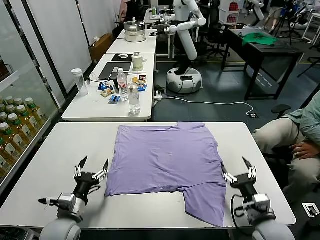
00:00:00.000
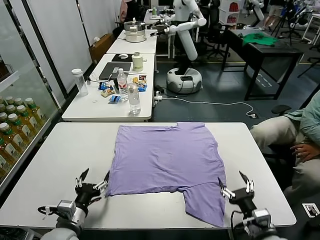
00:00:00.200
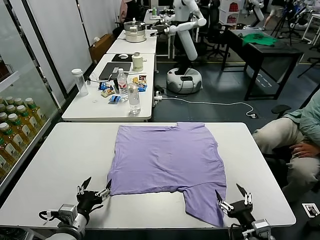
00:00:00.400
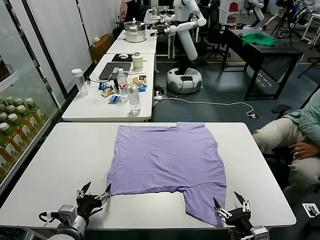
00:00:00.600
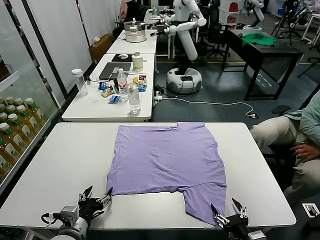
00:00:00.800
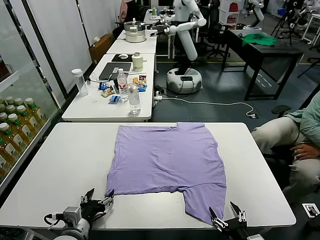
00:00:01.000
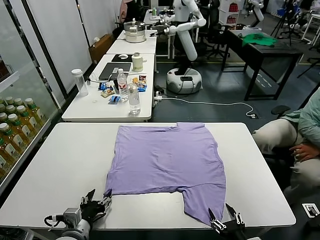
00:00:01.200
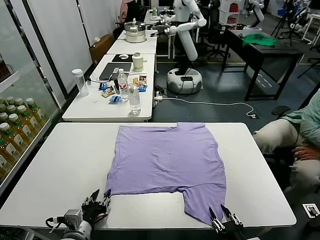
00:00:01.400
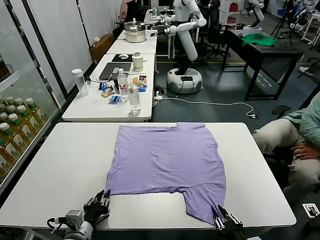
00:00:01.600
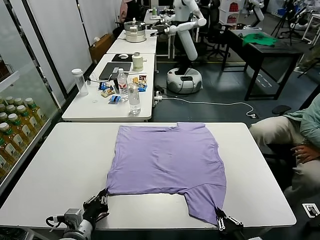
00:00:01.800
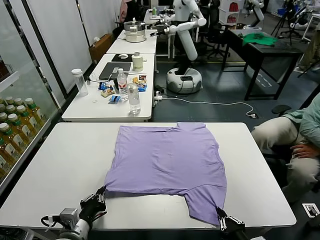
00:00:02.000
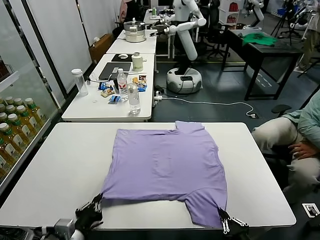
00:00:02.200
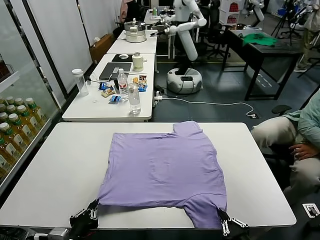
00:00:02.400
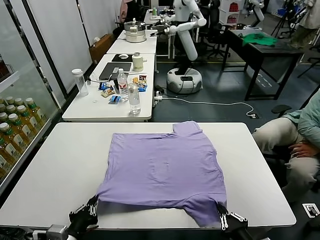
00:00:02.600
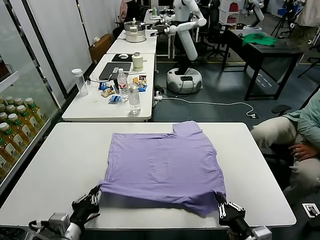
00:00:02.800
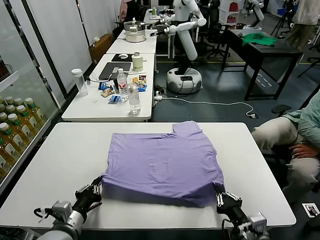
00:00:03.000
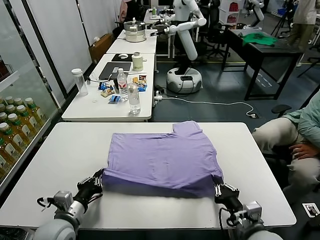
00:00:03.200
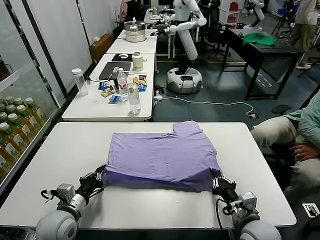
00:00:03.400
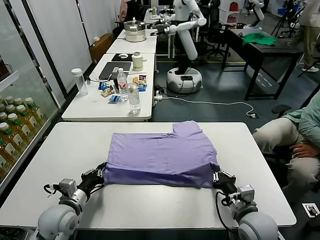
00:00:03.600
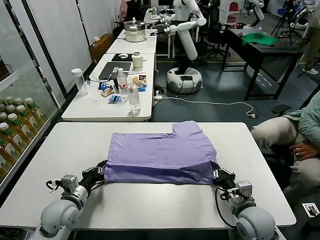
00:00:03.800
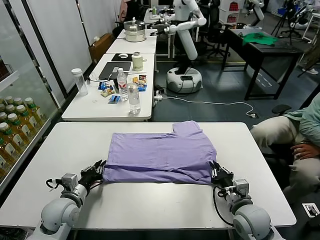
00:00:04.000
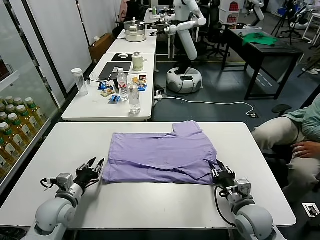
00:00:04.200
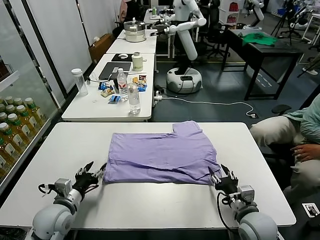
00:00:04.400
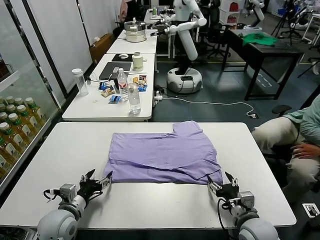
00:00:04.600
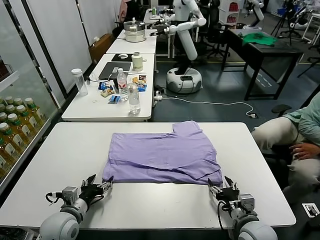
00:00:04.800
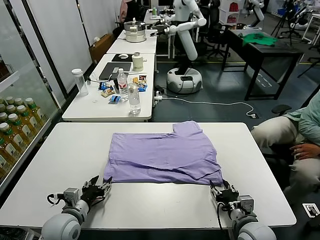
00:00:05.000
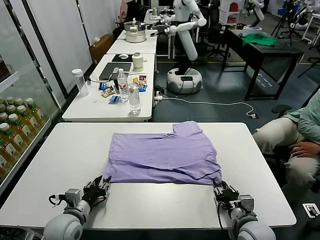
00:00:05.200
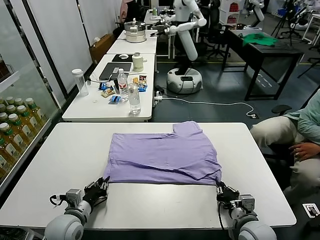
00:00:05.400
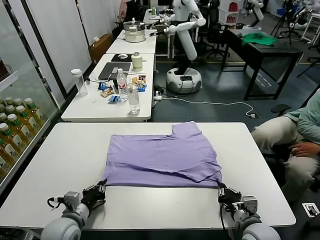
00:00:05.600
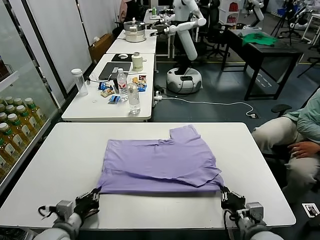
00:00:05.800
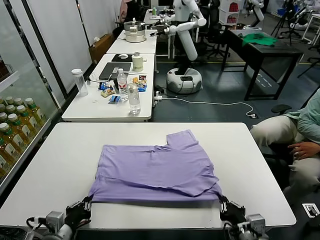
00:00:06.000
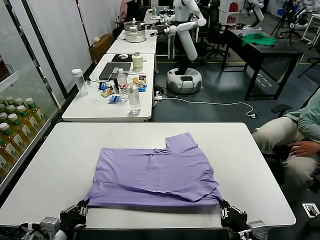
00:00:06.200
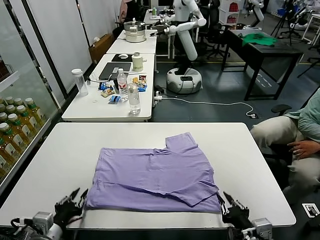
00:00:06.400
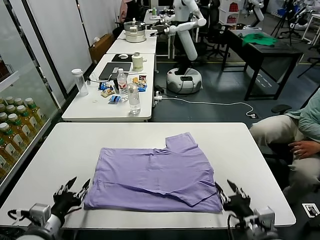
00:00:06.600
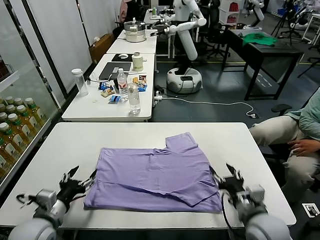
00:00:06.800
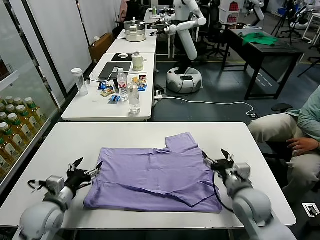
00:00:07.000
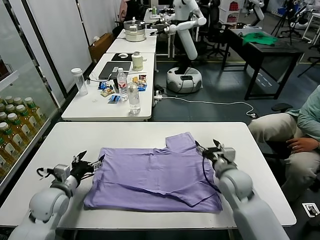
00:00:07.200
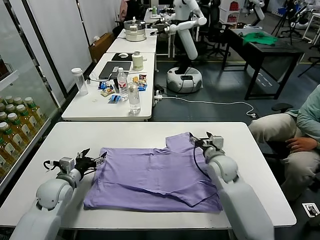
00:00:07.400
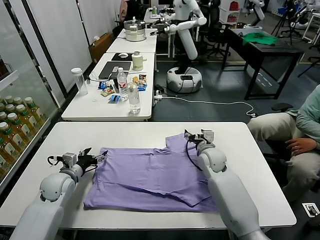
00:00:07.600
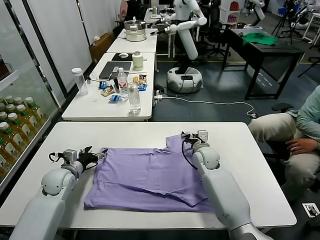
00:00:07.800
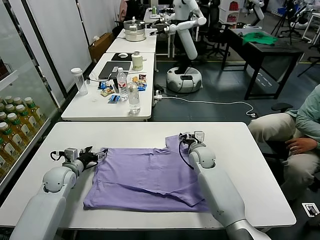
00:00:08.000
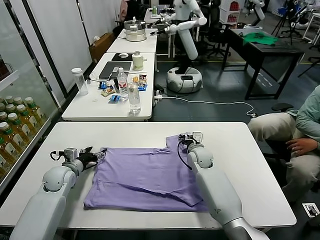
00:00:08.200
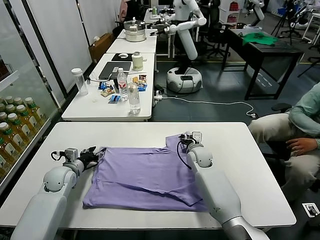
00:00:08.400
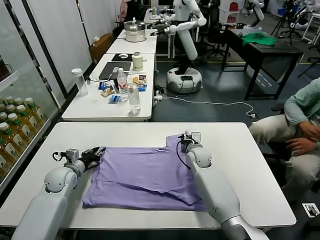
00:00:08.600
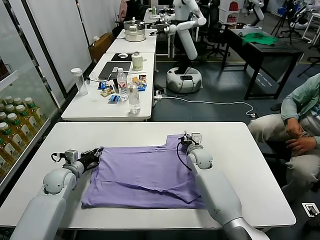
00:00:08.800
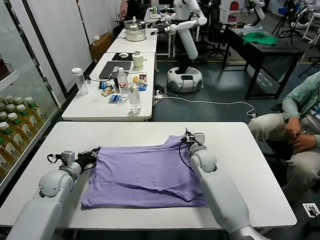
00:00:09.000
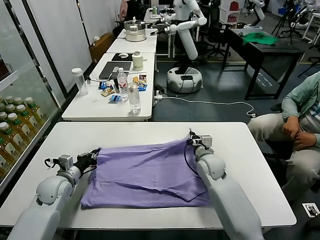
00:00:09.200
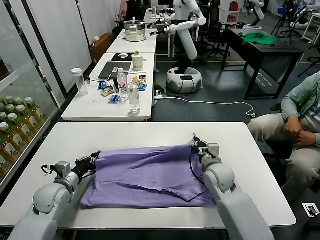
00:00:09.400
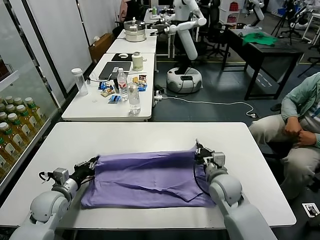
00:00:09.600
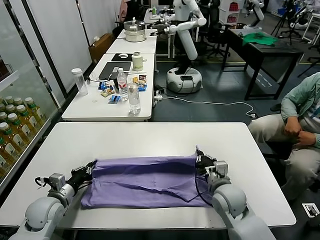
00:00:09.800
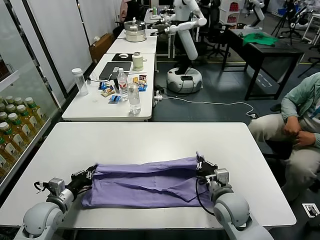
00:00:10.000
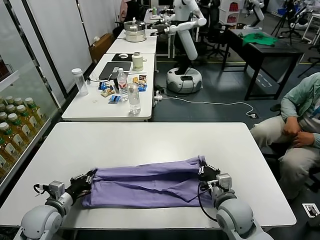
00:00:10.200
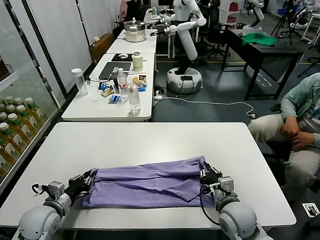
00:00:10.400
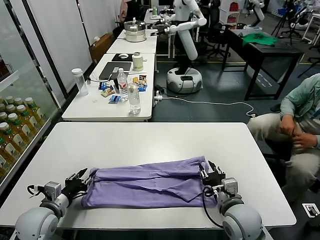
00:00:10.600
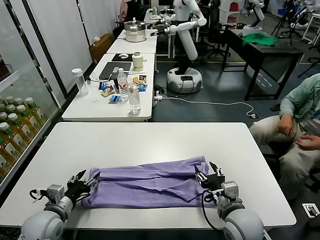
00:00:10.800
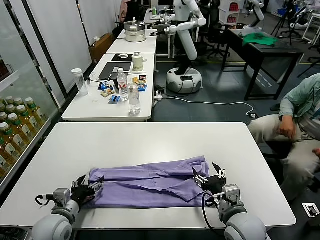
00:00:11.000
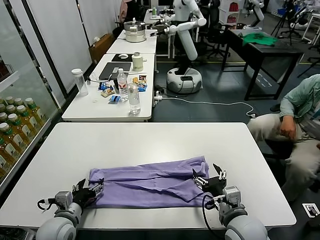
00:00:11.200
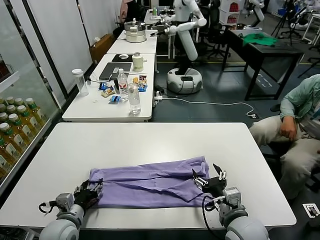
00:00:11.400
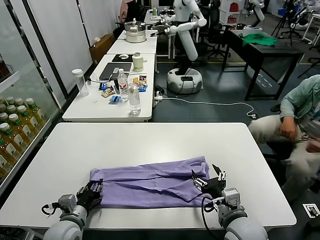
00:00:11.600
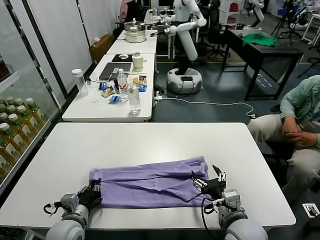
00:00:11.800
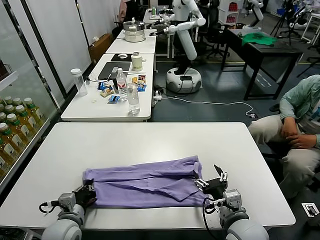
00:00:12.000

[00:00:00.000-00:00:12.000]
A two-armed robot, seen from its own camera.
Task of the whole recording: fold and organize the clothes.
Step, 00:00:00.000 to 00:00:01.800: use both grippers simultaneously to clamp the lower edge of the clothing fabric.
Step, 00:00:02.000 to 00:00:04.200: use both grippers to drag the lower edge of the fabric forward and fold it over the upper edge.
Step, 00:00:04.400 to 00:00:06.200: Drag the clothes downward with both gripper.
Step, 00:00:06.600 to 00:00:07.600: use both grippers simultaneously to clamp the upper edge of the clothing fabric.
Step, 00:00:07.800 to 00:00:12.000: use the left gripper to clamp the left edge of the fabric.
00:00:01.600 to 00:00:03.000: The left gripper moves about 5 cm backward and comes back; the right gripper heads forward and upward, covering some 10 cm.
00:00:03.000 to 00:00:04.400: The right gripper opens its fingers, while the left gripper travels forward by roughly 5 cm, and opens its fingers.
00:00:04.400 to 00:00:06.000: The grippers both shift backward by about 10 cm. The left gripper closes its fingers. The right gripper closes.
00:00:06.000 to 00:00:07.600: The right gripper is displaced forward by some 35 cm, and opens up; the left gripper goes some 20 cm forward, and opens its fingers.
00:00:07.600 to 00:00:09.000: The right gripper closes; the left gripper closes its fingers.
00:00:09.000 to 00:00:10.400: The left gripper moves backward, some 15 cm. Meanwhile the right gripper heads backward, covering about 20 cm, and opens its fingers.
00:00:10.400 to 00:00:12.000: The left gripper goes roughly 10 cm to the right, and opens and closes again. The right gripper goes about 5 cm backward, and opens up.

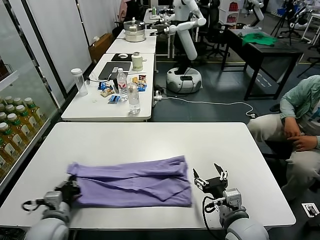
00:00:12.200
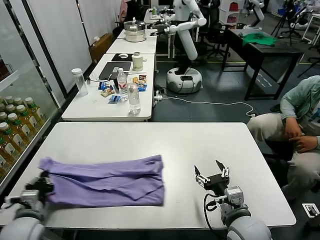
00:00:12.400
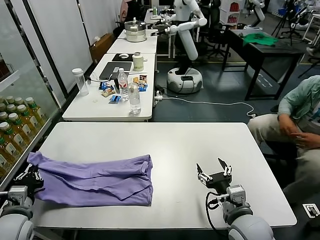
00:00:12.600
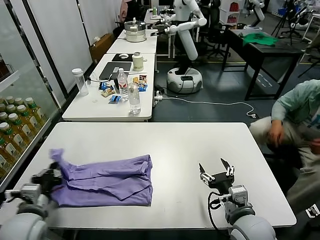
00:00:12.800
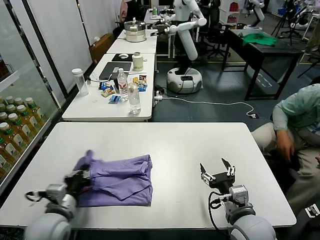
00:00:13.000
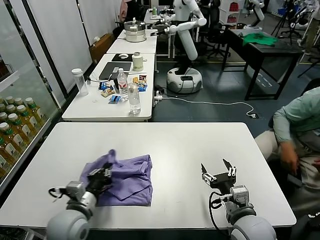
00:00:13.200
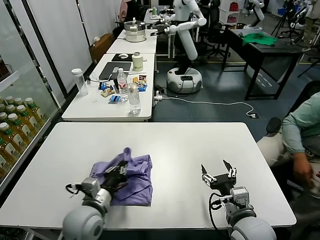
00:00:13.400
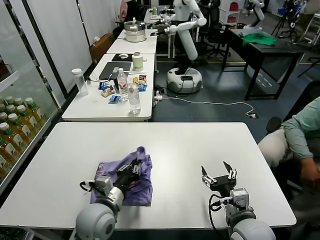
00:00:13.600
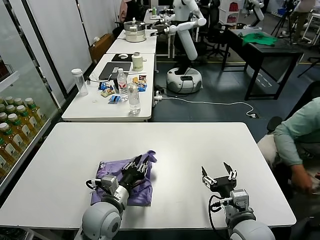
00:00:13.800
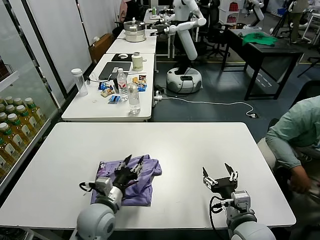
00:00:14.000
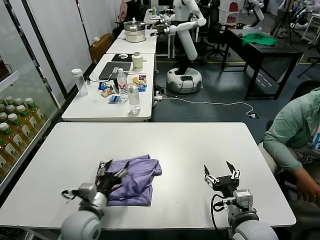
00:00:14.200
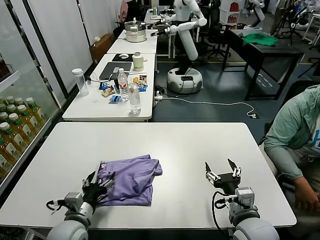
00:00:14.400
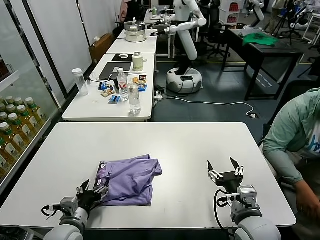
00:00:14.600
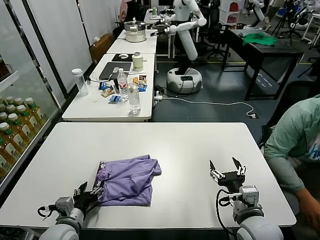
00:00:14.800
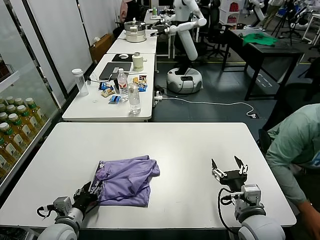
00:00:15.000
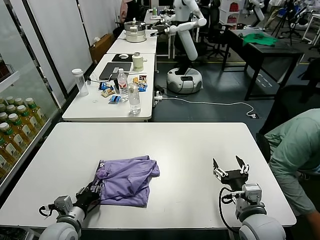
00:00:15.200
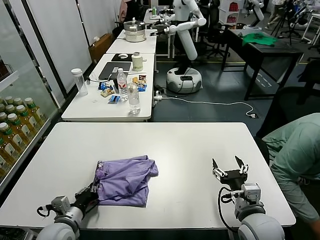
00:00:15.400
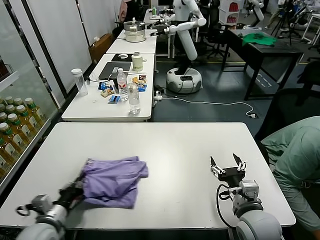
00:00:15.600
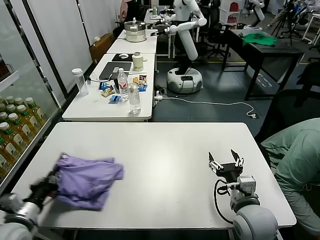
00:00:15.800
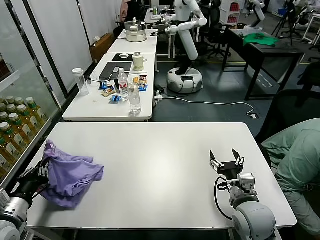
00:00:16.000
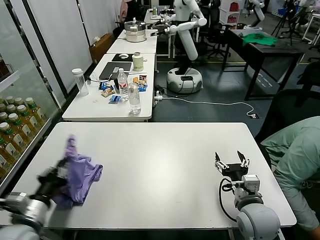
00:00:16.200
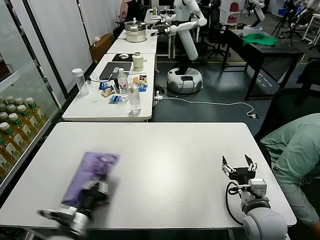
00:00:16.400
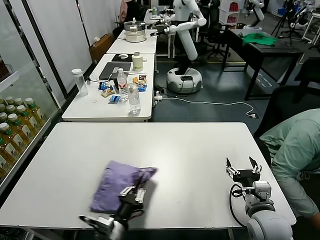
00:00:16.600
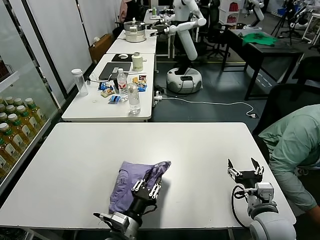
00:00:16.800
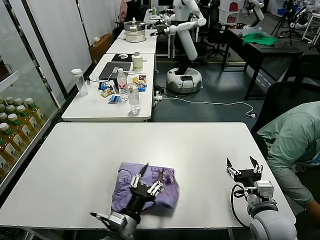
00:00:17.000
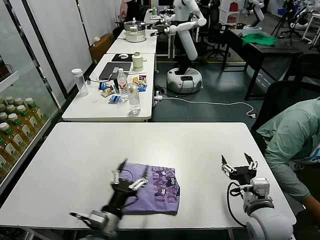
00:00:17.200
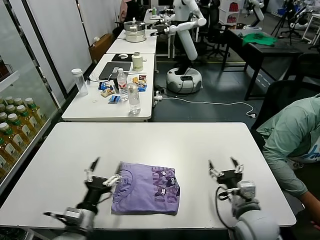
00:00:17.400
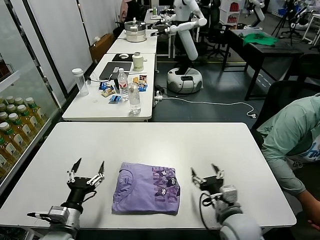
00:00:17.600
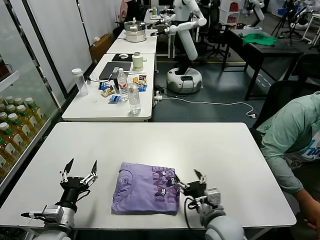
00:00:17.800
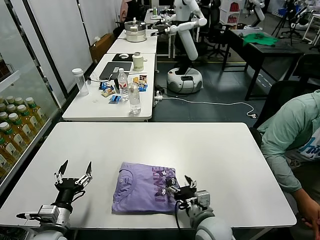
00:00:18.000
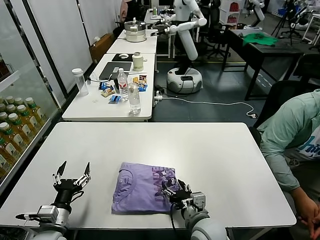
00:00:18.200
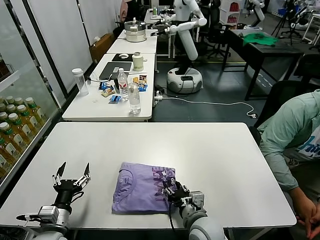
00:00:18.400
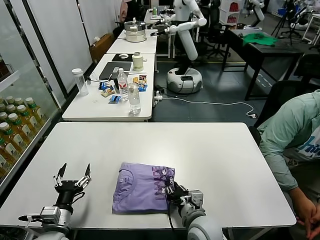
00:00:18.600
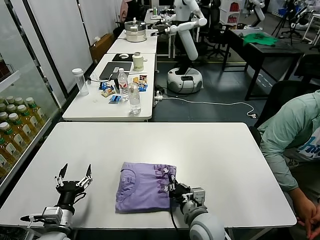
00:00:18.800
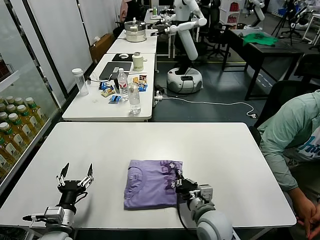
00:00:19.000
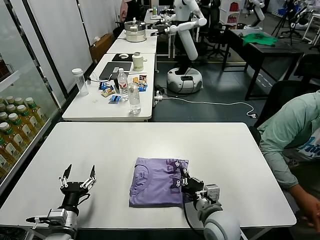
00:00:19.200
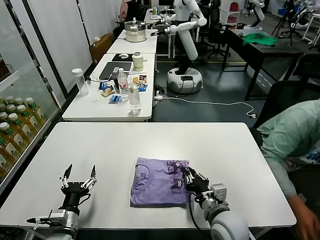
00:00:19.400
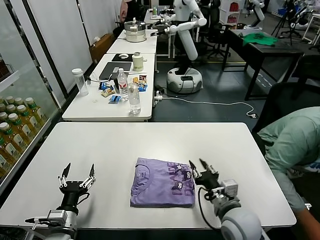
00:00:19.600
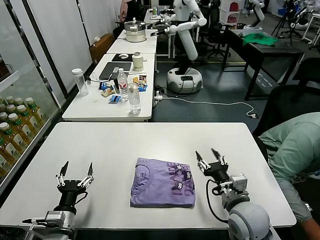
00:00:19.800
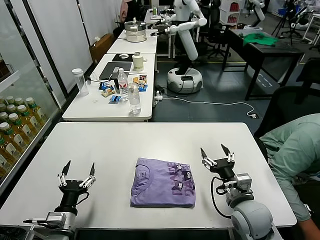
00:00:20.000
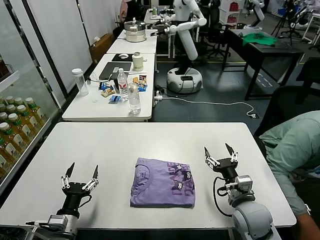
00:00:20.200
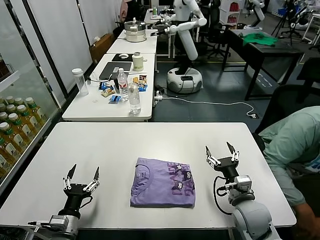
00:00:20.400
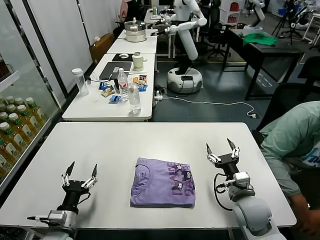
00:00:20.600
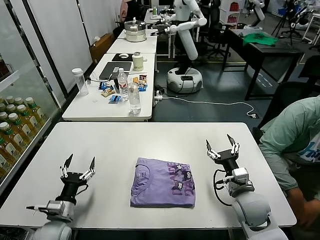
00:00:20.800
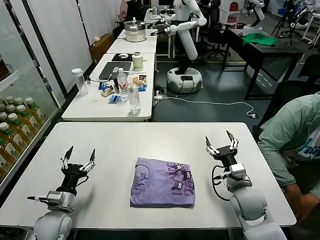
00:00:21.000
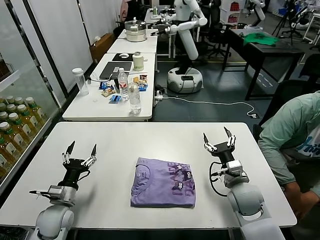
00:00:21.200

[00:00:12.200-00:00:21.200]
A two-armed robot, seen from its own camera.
Task of the whole recording: fold and organize the clothes.
Step, 00:00:12.200 to 00:00:14.000: use the left gripper to drag the left edge of the fabric to the left and folds it over the right edge.
Step, 00:00:14.200 to 00:00:17.000: Flip the folded clothes over with left gripper.
Step, 00:00:17.200 to 00:00:19.400: Drag the clothes to the center of the table.
00:00:12.200 to 00:00:13.800: The left gripper moves to the right, some 15 cm.
00:00:13.800 to 00:00:15.200: The left gripper is displaced to the left and downward by about 15 cm, and opens, then closes once more.
00:00:15.200 to 00:00:16.600: The left gripper moves to the right and backward, roughly 10 cm.
00:00:16.600 to 00:00:18.200: The two grippers go some 15 cm to the left. The left gripper opens up.
00:00:18.200 to 00:00:19.800: The right gripper is displaced to the right and upward by roughly 10 cm, and closes and opens again.
00:00:19.800 to 00:00:21.200: The two grippers go roughly 10 cm forward.
